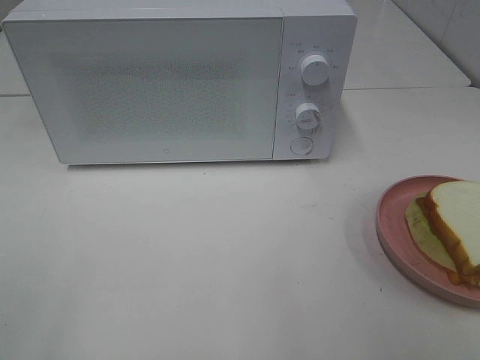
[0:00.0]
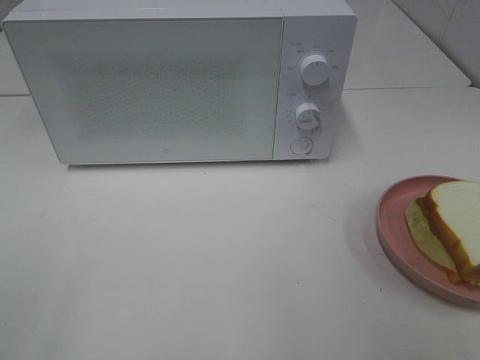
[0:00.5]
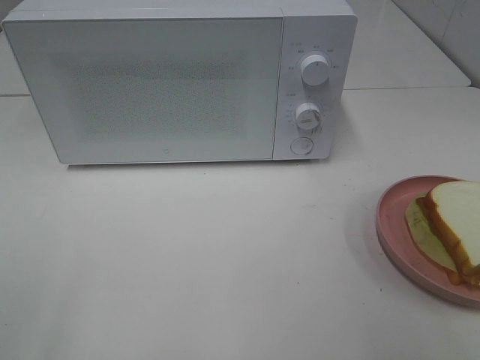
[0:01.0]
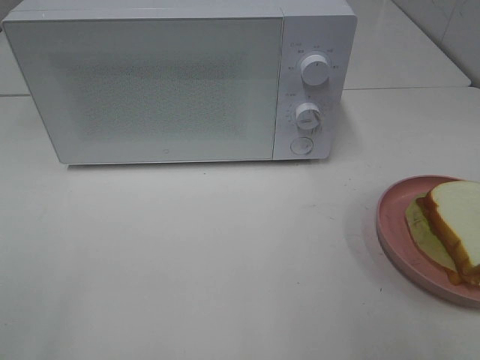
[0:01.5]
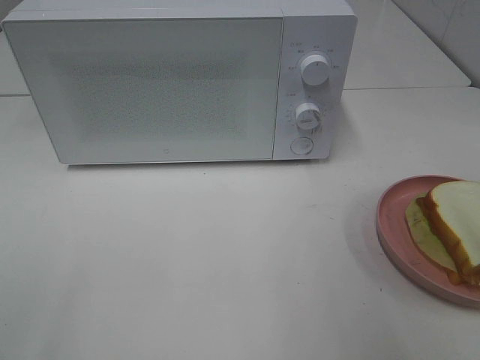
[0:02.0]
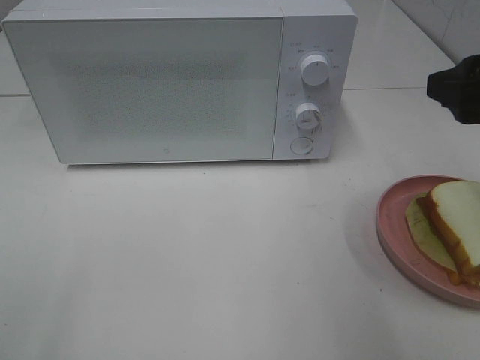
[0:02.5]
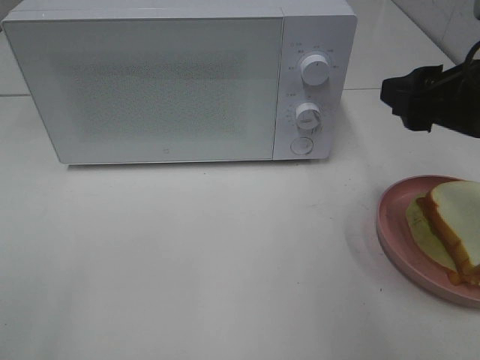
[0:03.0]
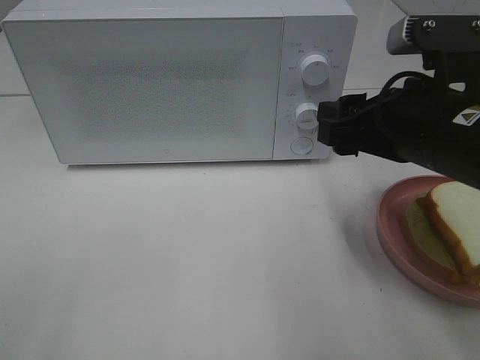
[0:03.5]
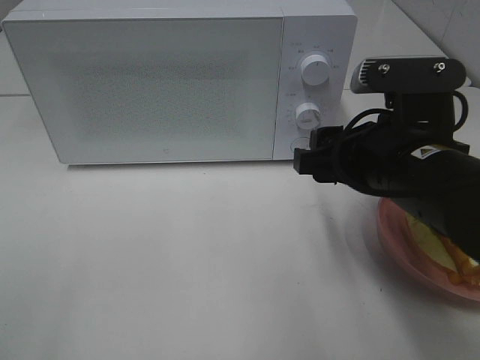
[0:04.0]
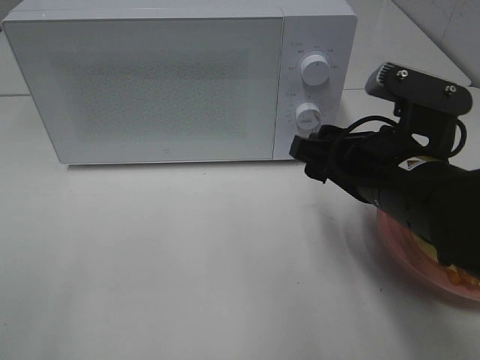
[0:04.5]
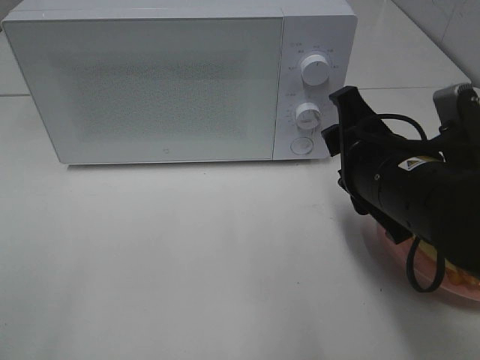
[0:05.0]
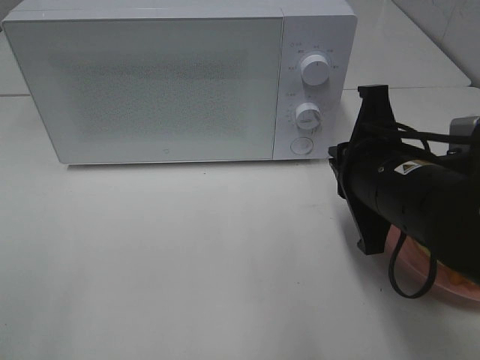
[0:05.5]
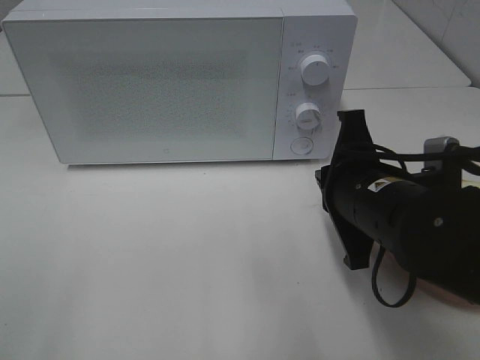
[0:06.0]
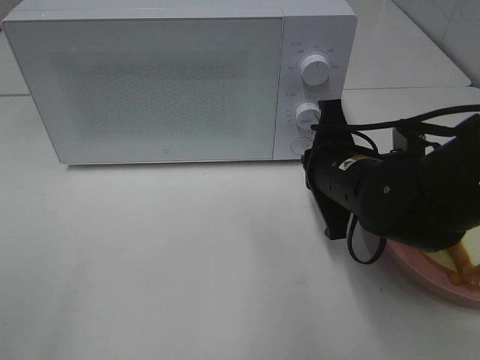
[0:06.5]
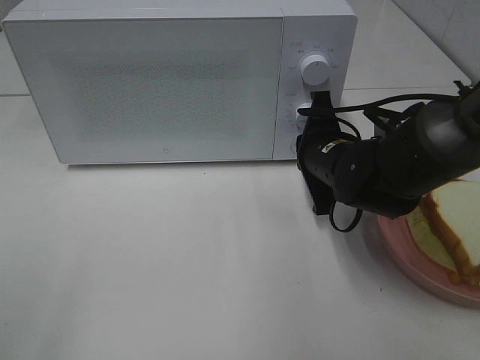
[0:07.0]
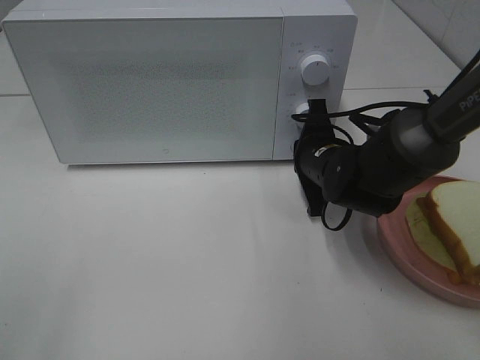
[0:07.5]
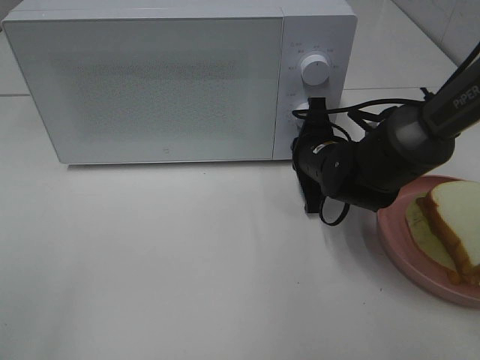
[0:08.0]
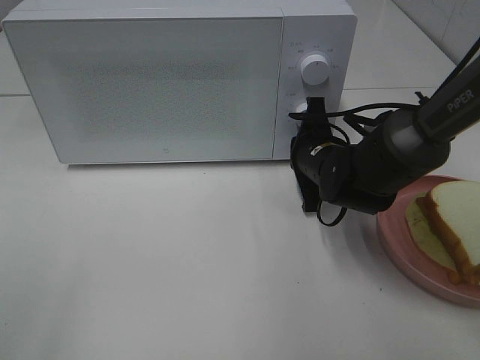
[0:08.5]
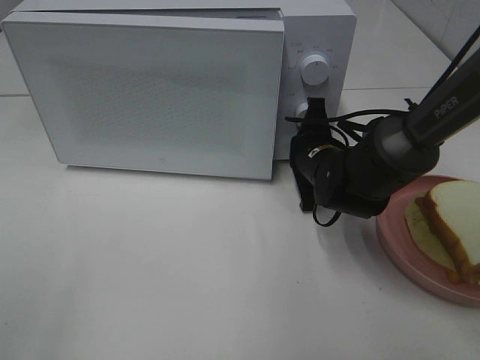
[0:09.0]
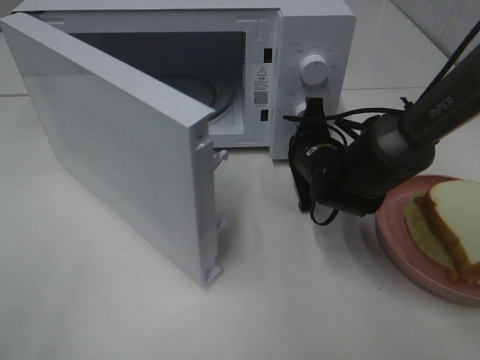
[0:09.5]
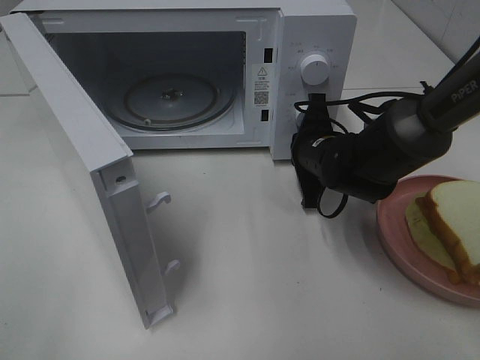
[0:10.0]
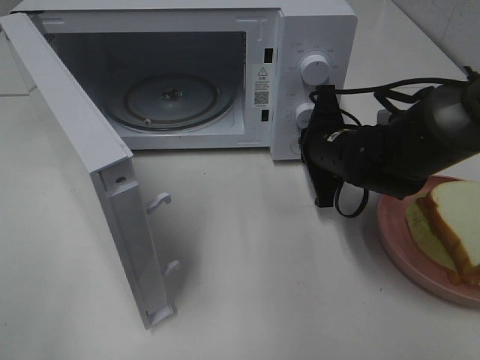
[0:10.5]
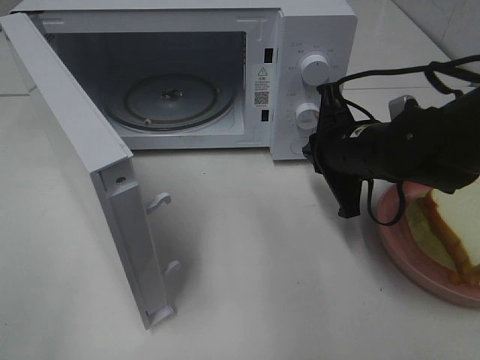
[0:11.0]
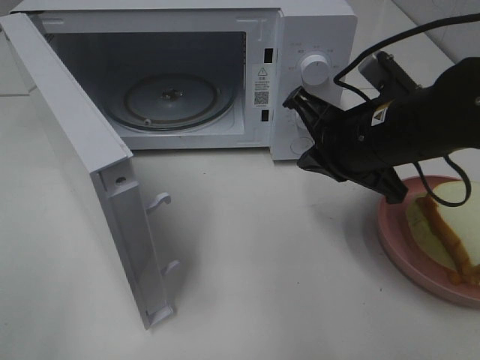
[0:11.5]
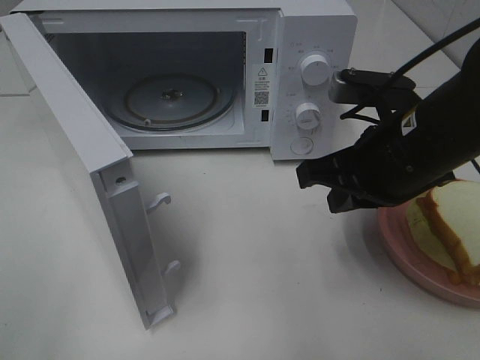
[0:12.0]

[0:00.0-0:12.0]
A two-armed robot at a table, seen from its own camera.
Task of the whole recording: Heat Sandwich.
Step, 0.0 to 10.5 s: Right hand: press the switch.
2.0 to 4.0 s: The right gripper goes some 15 cm to the left, downward and forward.
4.0 to 6.0 s: The right gripper closes.
6.0 to 8.0 s: The right gripper heads forward and downward, covering approximately 15 cm.
10.0 to 12.0 s: The right gripper goes some 15 cm backward and upward.

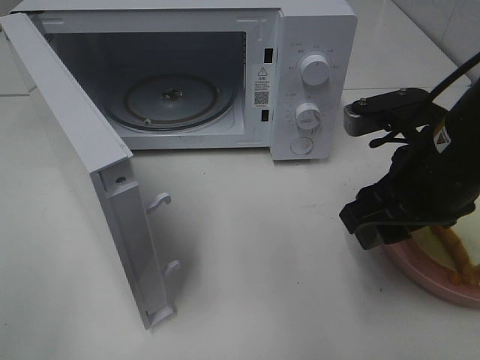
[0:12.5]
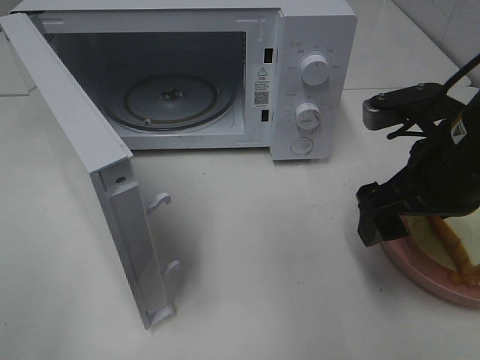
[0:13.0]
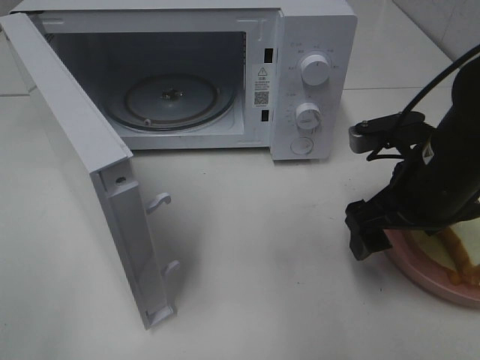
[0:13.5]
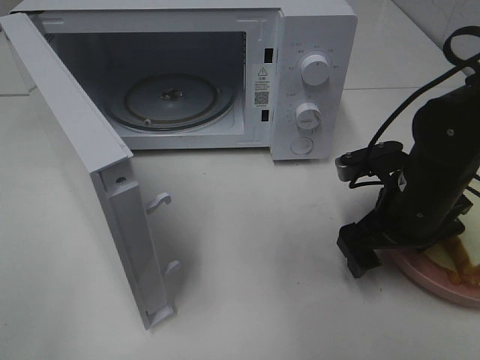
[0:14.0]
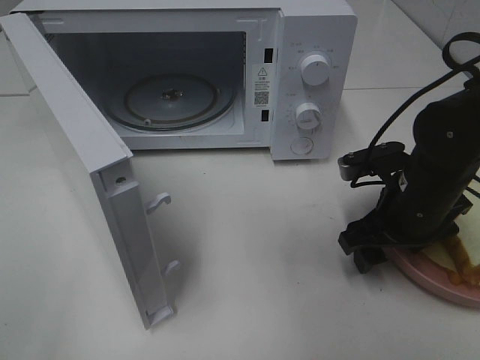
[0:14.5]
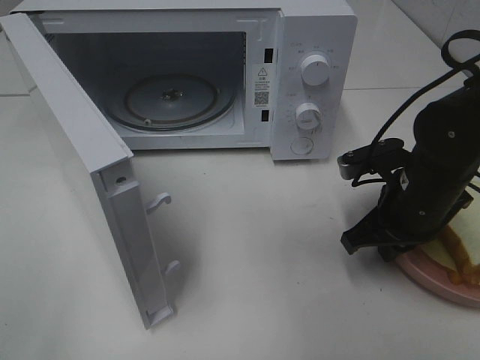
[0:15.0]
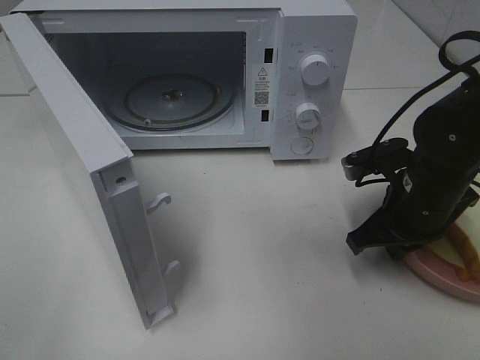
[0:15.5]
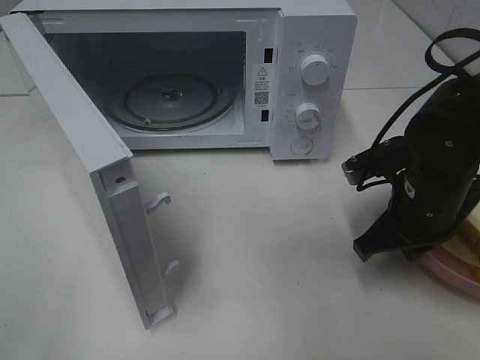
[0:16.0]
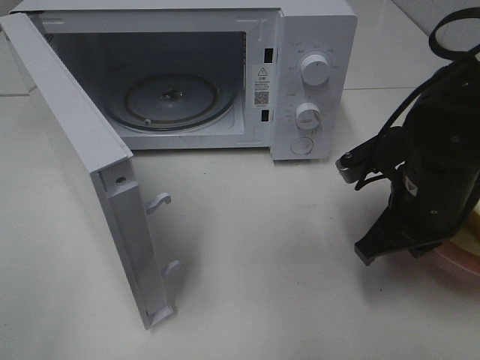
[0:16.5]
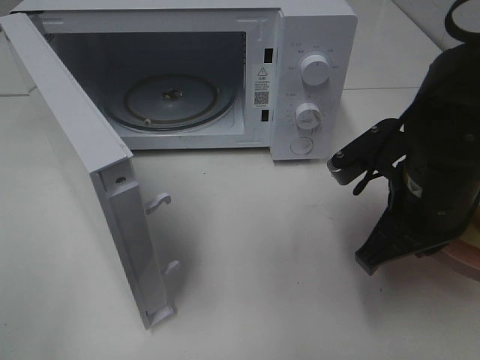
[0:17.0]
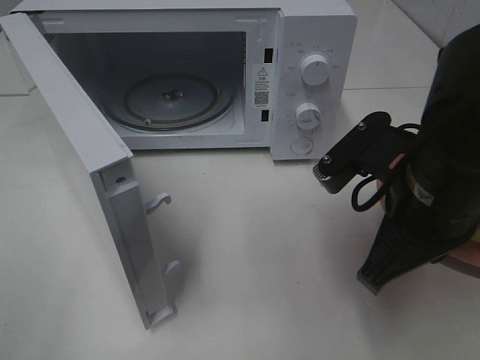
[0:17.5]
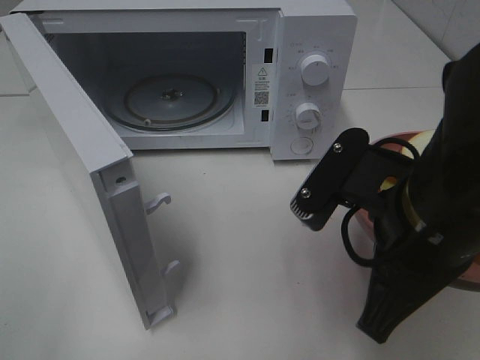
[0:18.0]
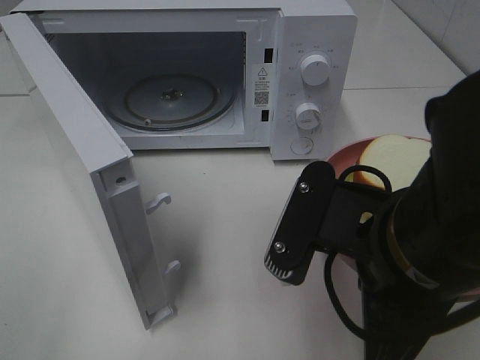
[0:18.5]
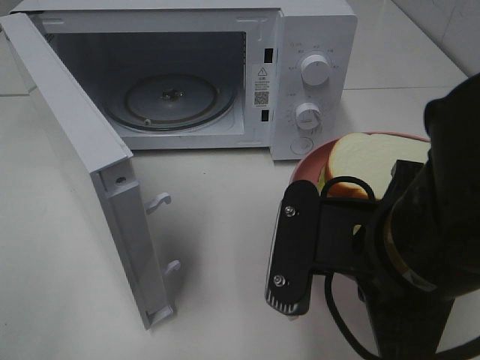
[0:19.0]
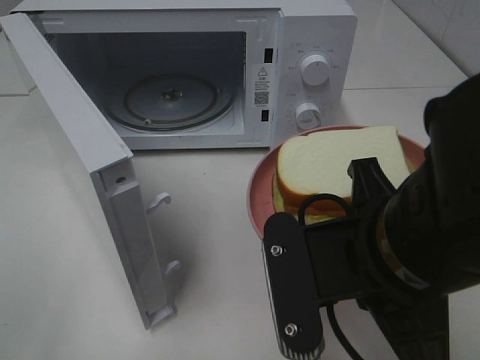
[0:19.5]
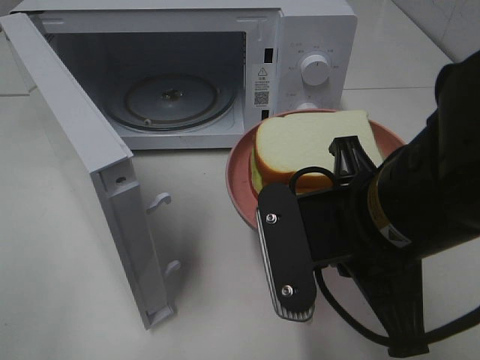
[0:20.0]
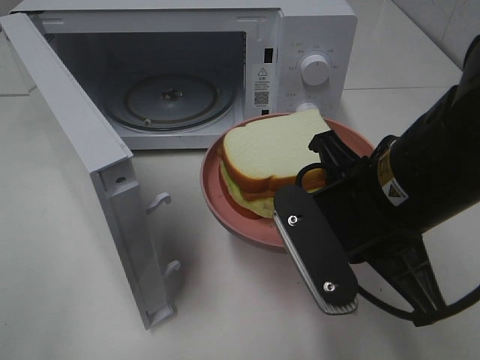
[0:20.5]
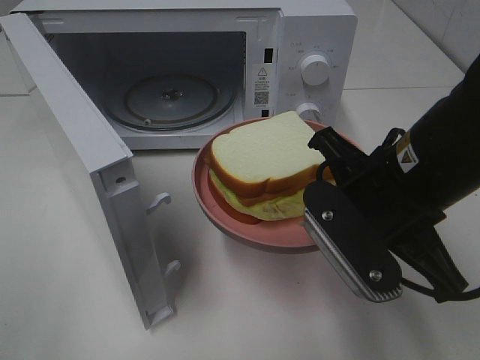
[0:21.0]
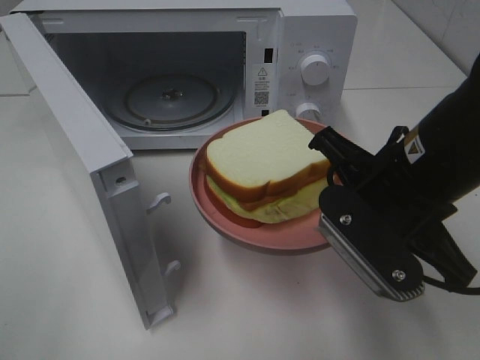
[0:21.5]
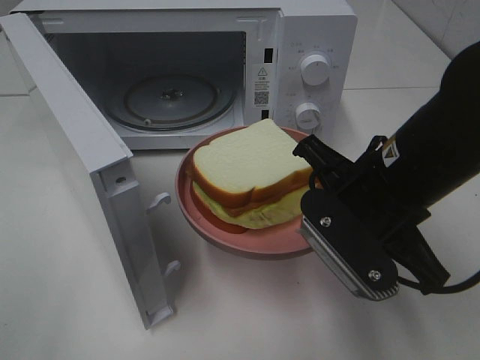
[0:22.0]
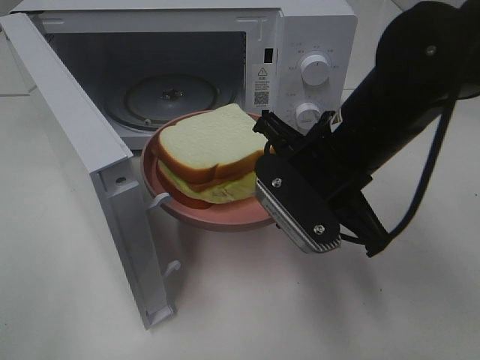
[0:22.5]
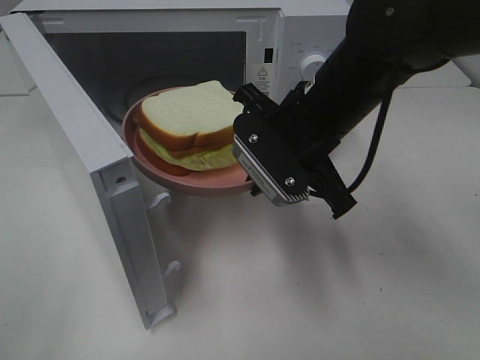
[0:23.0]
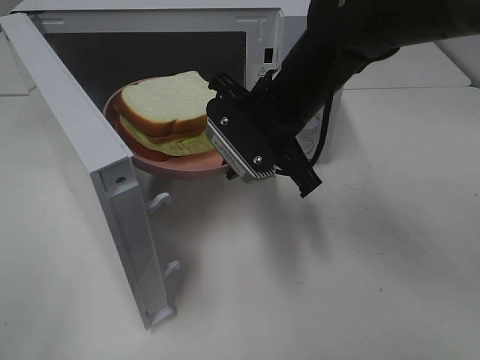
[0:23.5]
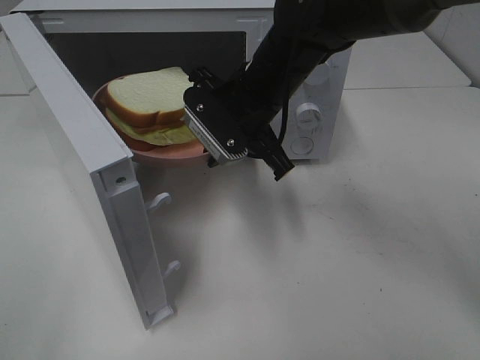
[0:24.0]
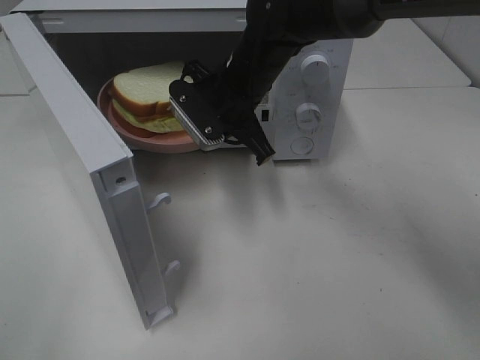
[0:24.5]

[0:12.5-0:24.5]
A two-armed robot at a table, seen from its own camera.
Task of the whole recording: Heat Sandwich.
Step, 12.5 to 15.5 s: Right hand: grab the plate with the sandwich.
12.5 to 14.5 s: The right gripper travels downward and forward by about 10 cm.
14.5 to 16.5 s: The right gripper closes up.
16.5 to 18.5 s: The right gripper travels backward, to the left and upward by roughly 15 cm.
18.5 to 20.5 s: The right gripper heads forward, covering some 5 cm.
20.5 to 22.5 s: The right gripper is displaced forward by approximately 5 cm.
22.5 to 24.5 s: The right gripper is displaced forward and to the left by roughly 15 cm.

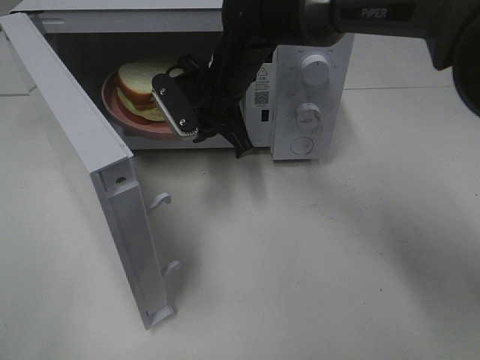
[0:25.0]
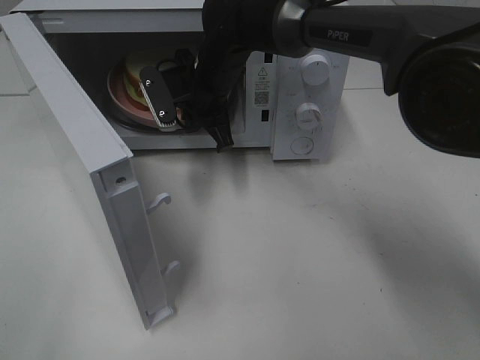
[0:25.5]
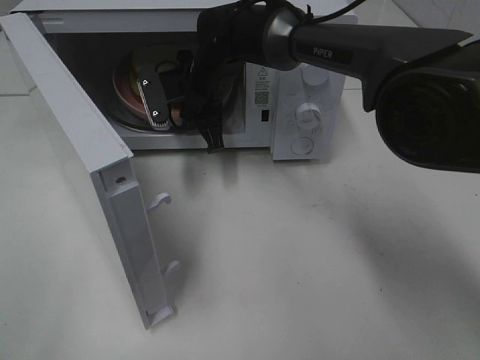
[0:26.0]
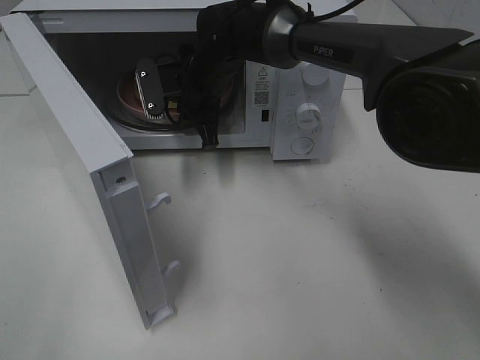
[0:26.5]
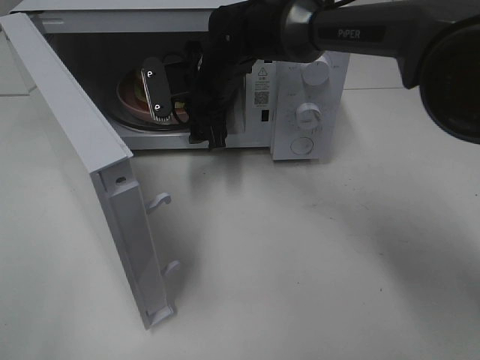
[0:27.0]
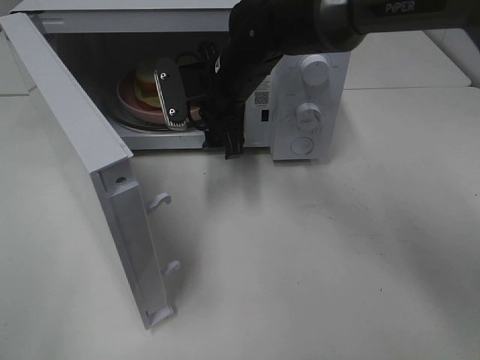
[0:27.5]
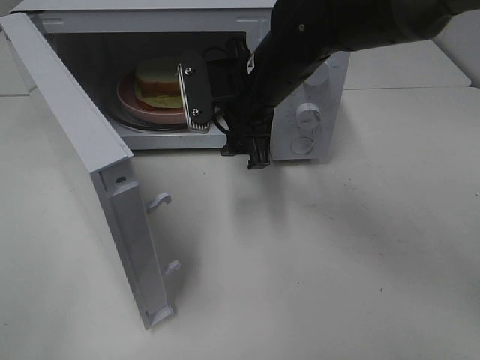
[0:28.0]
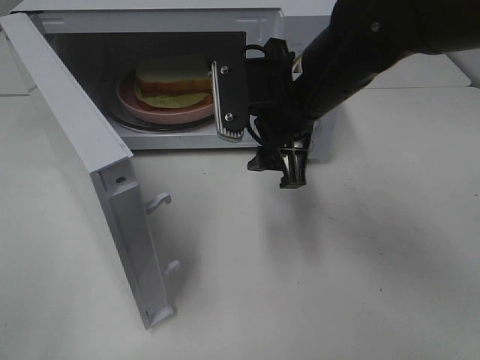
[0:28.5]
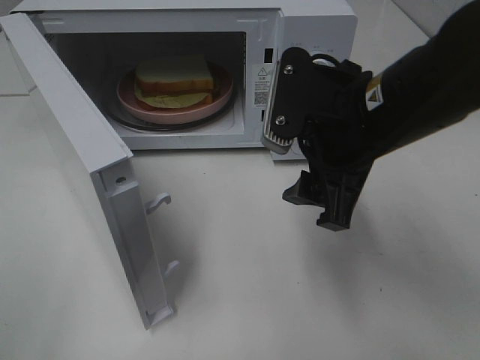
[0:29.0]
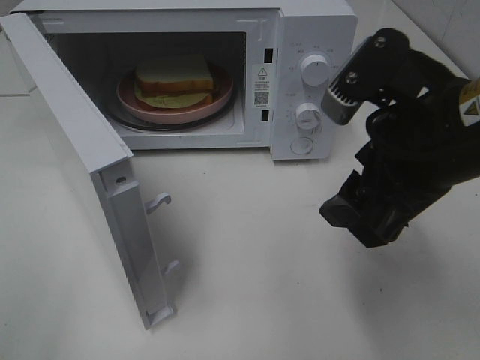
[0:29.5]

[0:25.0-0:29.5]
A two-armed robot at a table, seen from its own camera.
Task of the whole recording: Heat Sandwich.
Step, 25.0 to 27.5 s: Right hand: place the plate in the microwave.
25.0 to 27.0 s: The right gripper opens up.
27.0 to 29.5 s: The right gripper travels backward and to the right by some 30 cm.
